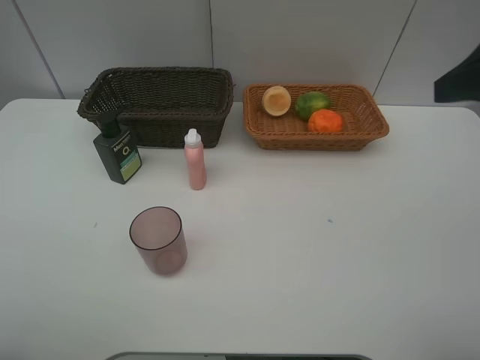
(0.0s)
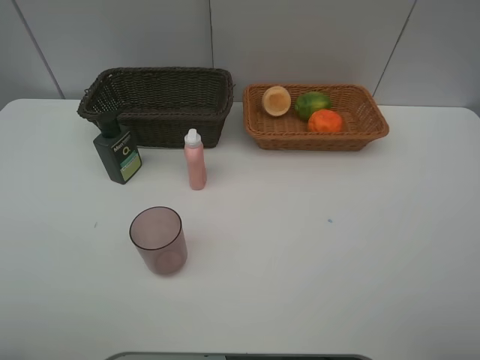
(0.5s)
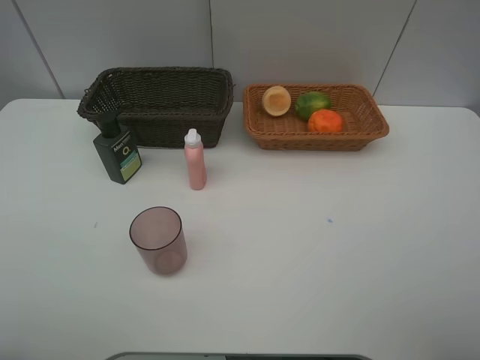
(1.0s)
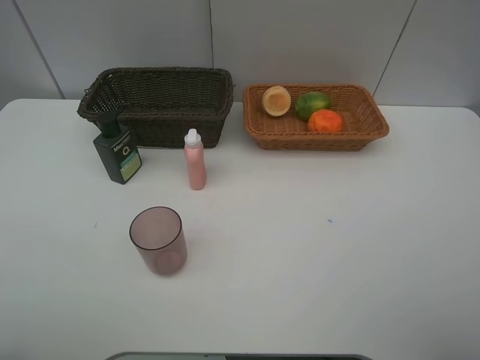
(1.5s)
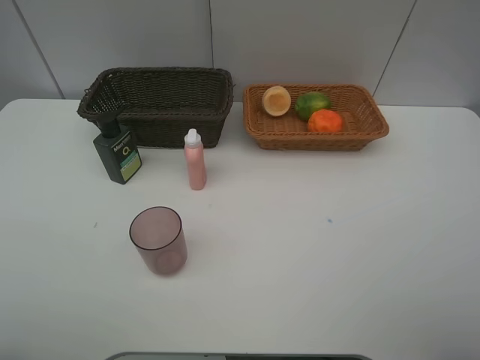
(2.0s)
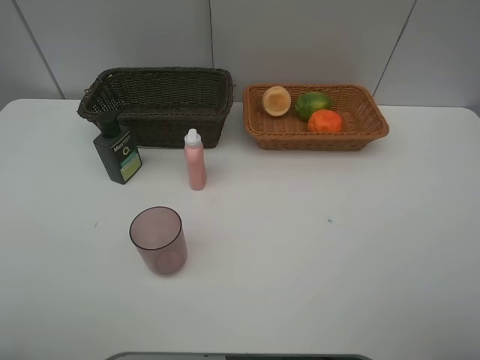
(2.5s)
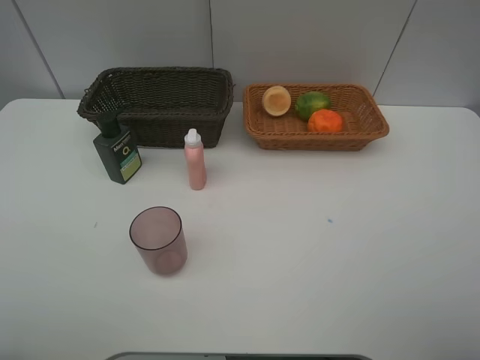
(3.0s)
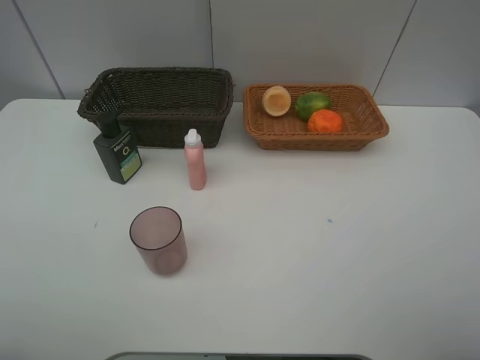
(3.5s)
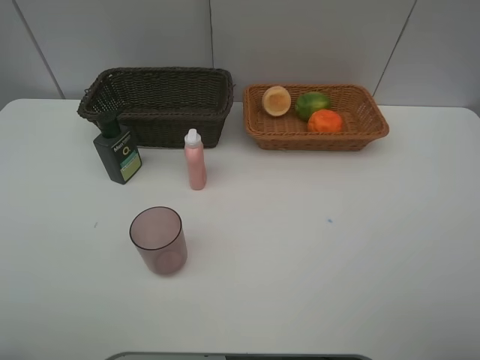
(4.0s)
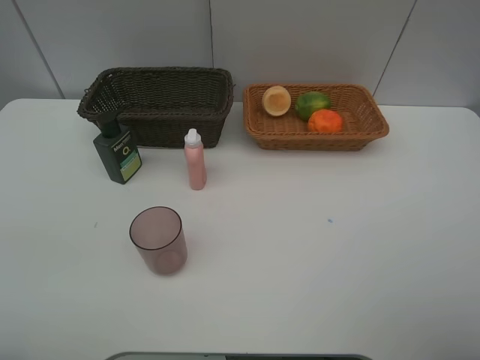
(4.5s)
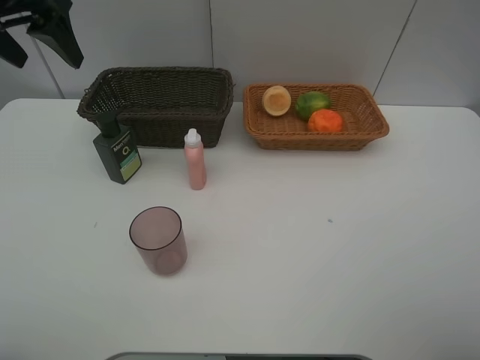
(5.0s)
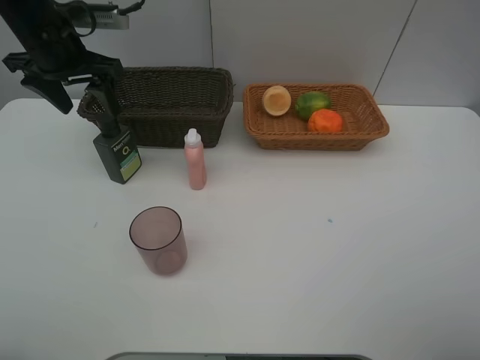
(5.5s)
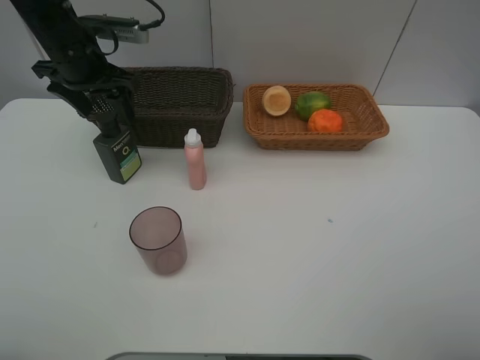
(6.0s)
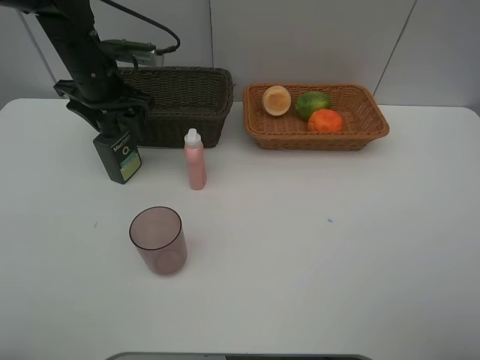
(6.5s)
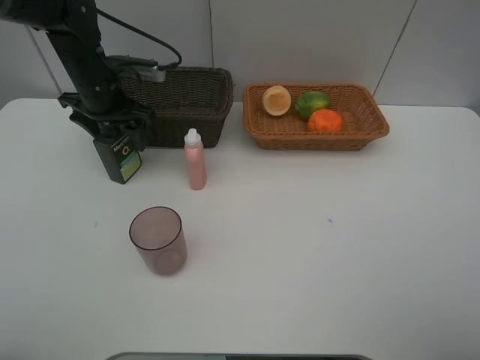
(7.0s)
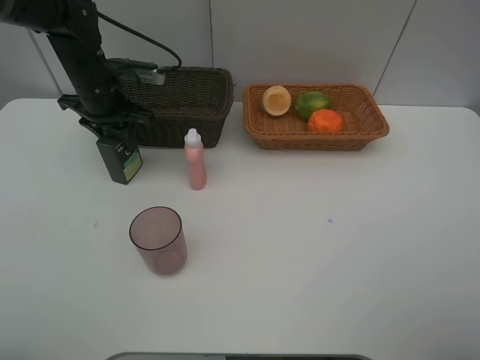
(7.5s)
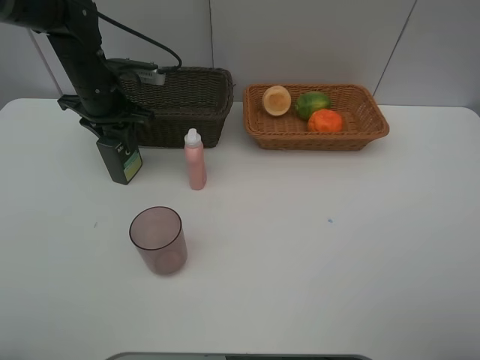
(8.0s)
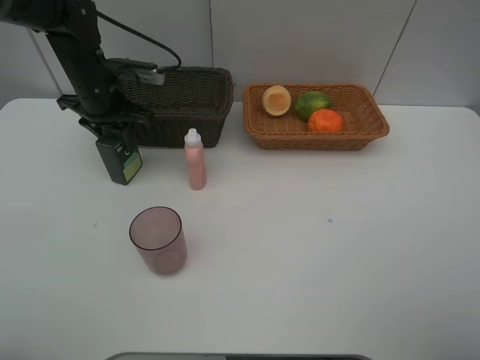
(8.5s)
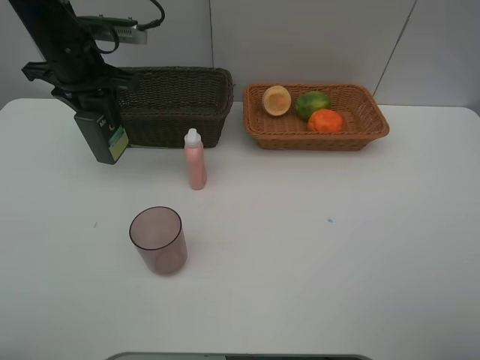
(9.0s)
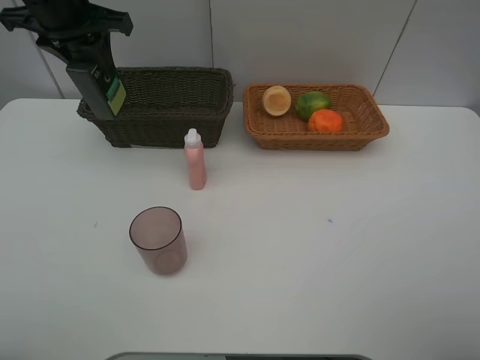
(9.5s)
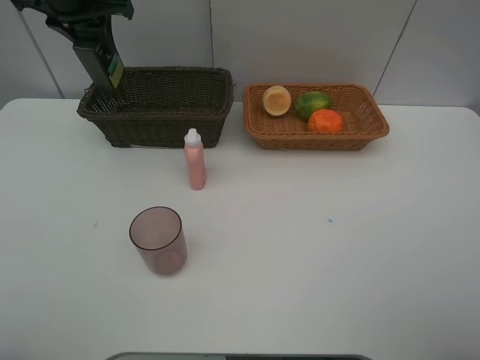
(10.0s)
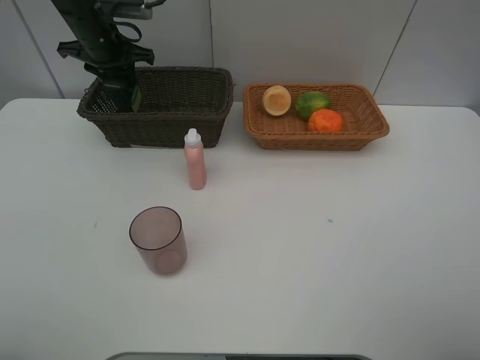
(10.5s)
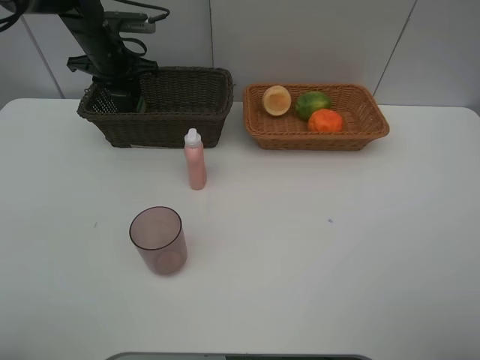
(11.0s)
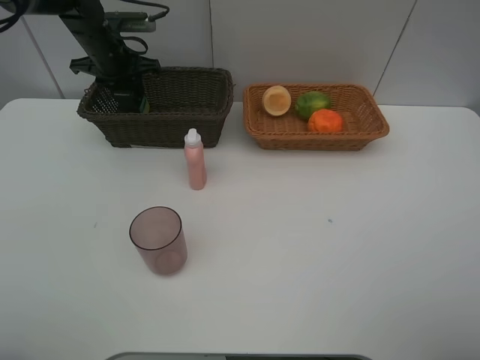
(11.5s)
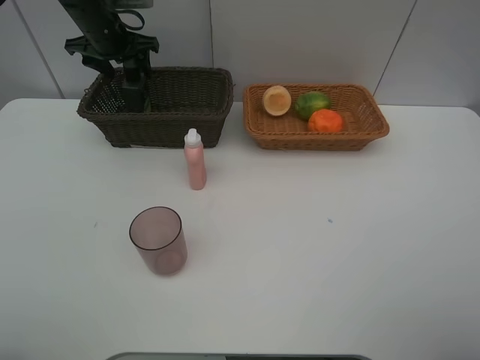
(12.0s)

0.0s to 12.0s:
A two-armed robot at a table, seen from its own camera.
Task of the whole recording: place multiple objects separately in different baskets.
0.0s to 2.0s: The right gripper goes some 15 cm backward and downward.
4.0s to 6.0s: The left gripper moves forward, about 40 cm.
6.0s to 8.0s: The left gripper goes some 5 cm downward, and closes.
8.0s to 10.0s: The left gripper heads upward, covering roughly 15 cm.
10.0s to 12.0s: The left gripper heads downward and forward, covering about 10 cm, and opens up.

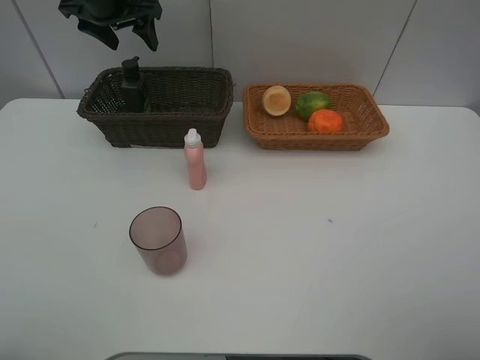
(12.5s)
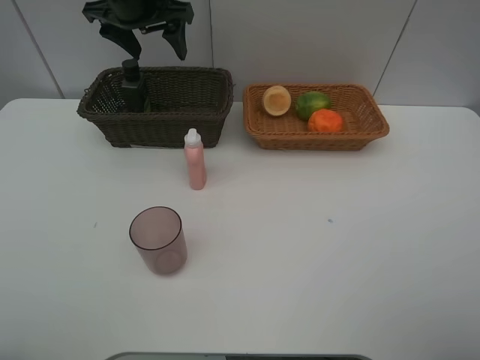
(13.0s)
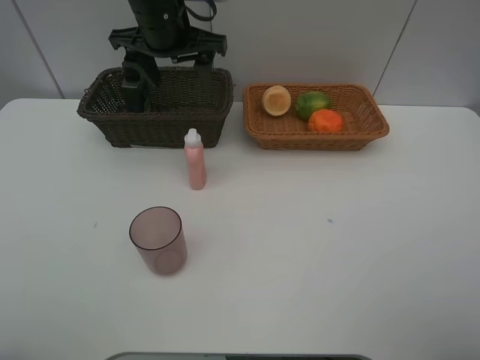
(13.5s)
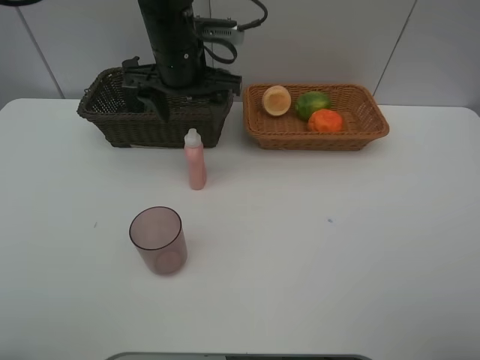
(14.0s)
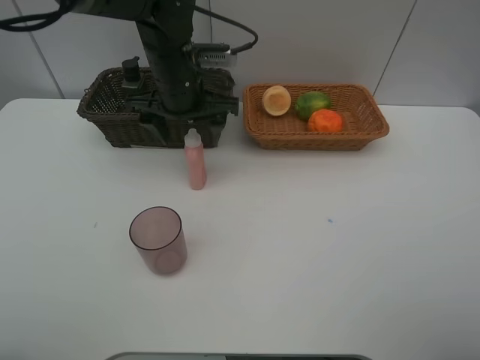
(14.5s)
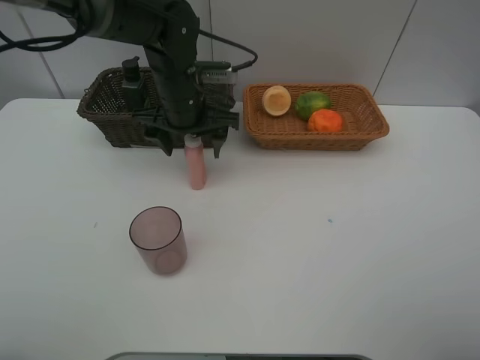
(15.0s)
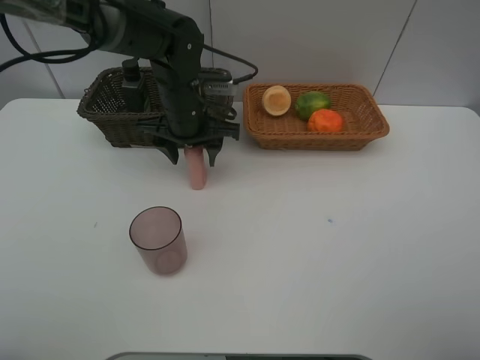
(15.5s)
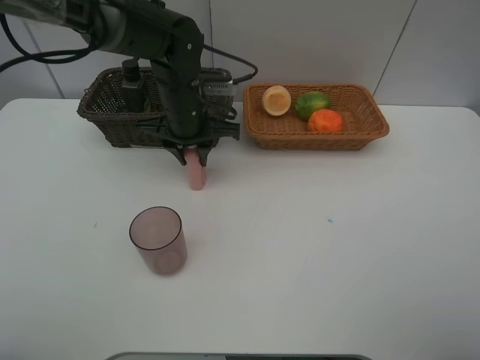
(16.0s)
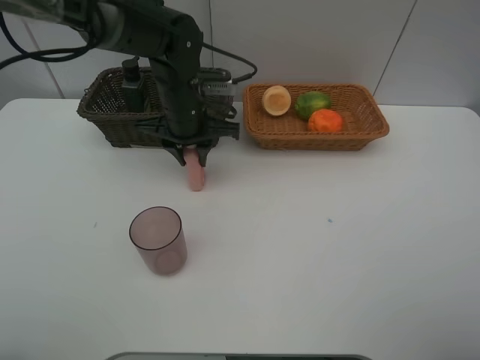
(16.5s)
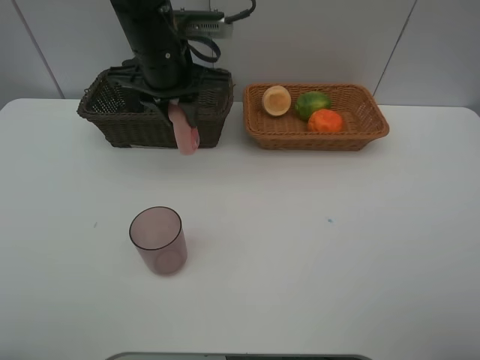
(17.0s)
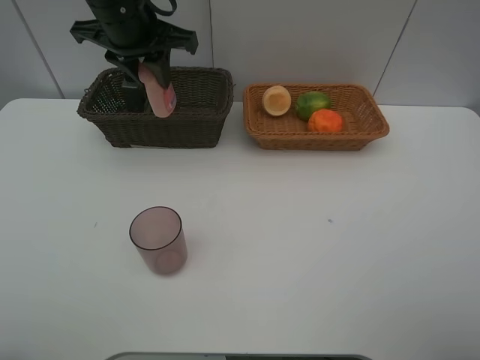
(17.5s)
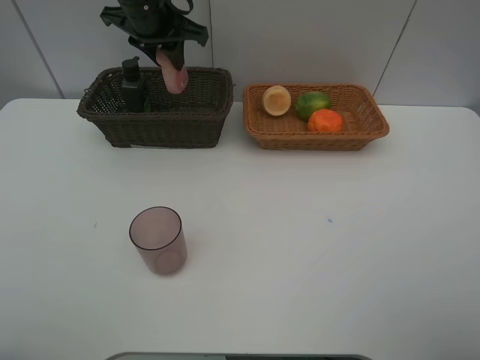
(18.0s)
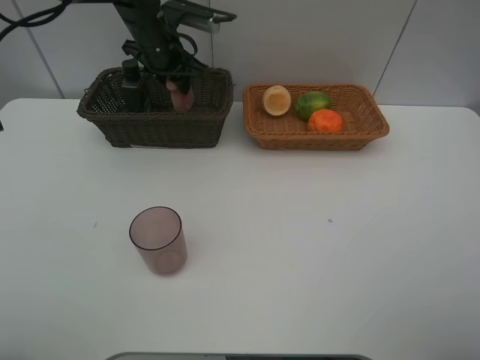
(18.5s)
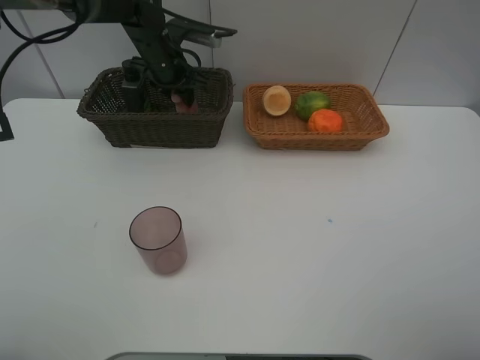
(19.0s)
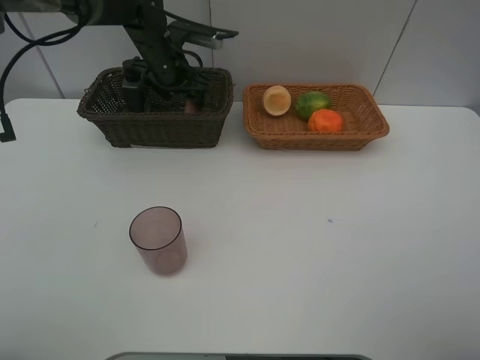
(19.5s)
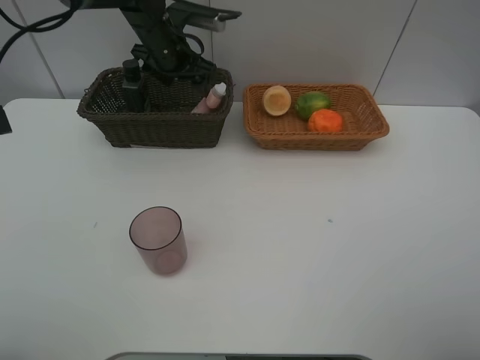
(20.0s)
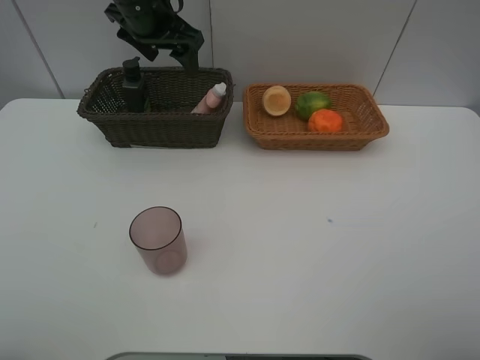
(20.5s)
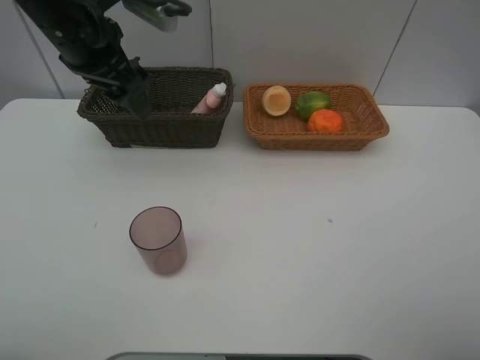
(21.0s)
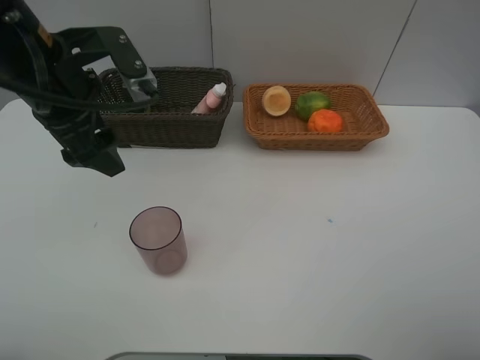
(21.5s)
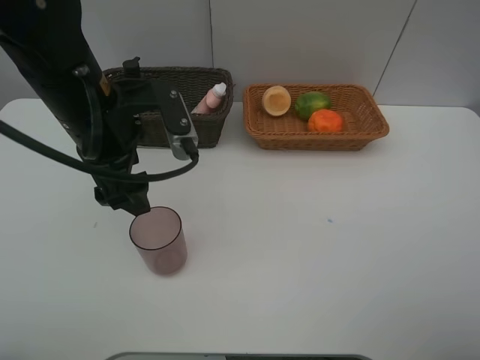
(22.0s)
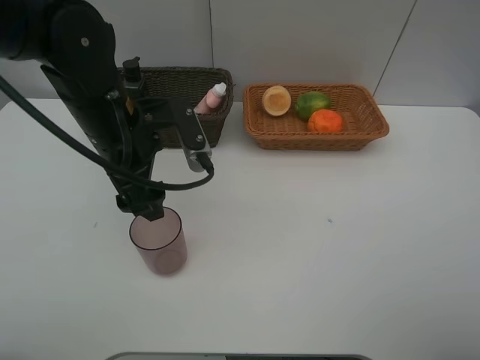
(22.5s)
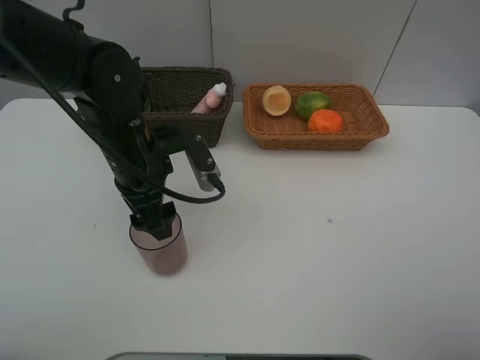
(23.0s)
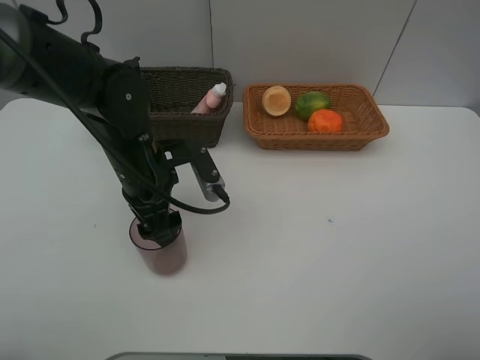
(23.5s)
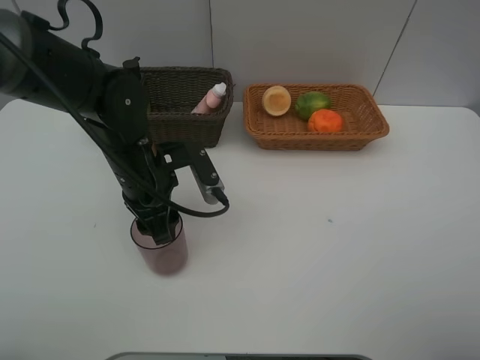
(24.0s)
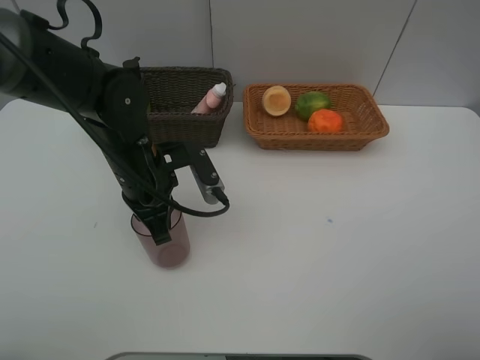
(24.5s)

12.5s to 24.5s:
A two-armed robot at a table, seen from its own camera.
Task of the whole recording: place multiple objects separately in different baskets.
12.5s to 14.5s: The left gripper heads to the right, backward and downward, covering about 20 cm.
14.5s to 16.5s: The left gripper closes its fingers.
16.5s to 18.5s: The left gripper moves forward and to the left, some 10 cm, and reaches approximately 15 cm upward, then returns.
18.5s to 20.5s: The left gripper is displaced upward and backward by about 10 cm, and opens up.
20.5s to 22.5s: The left gripper heads backward and downward, covering approximately 20 cm.
22.5s to 24.5s: The left gripper is displaced downward by approximately 5 cm, and closes up.

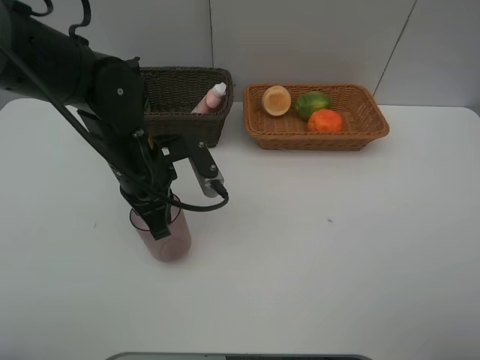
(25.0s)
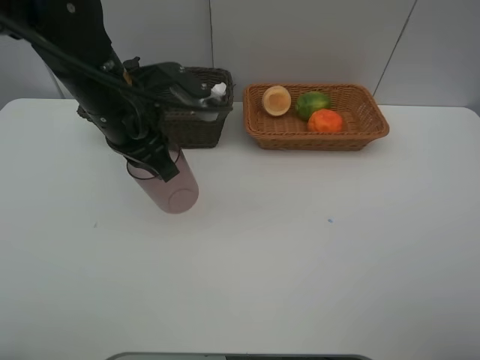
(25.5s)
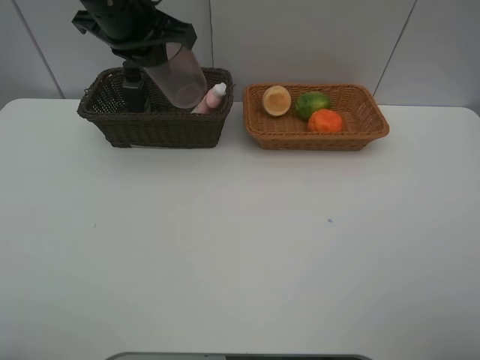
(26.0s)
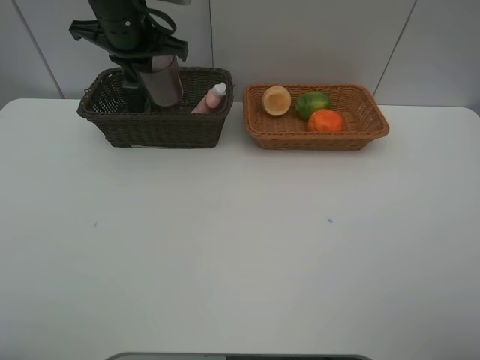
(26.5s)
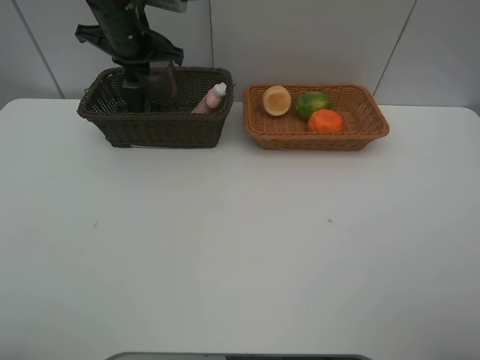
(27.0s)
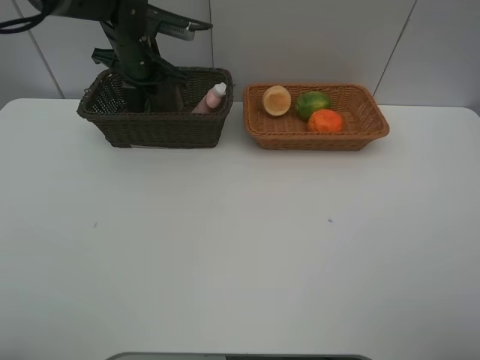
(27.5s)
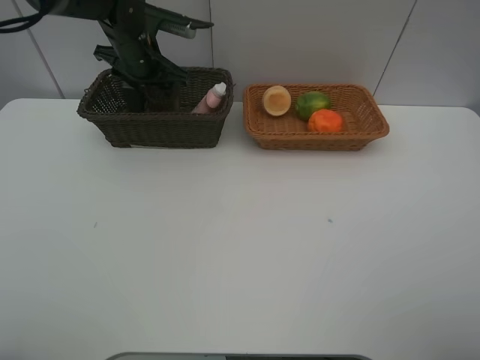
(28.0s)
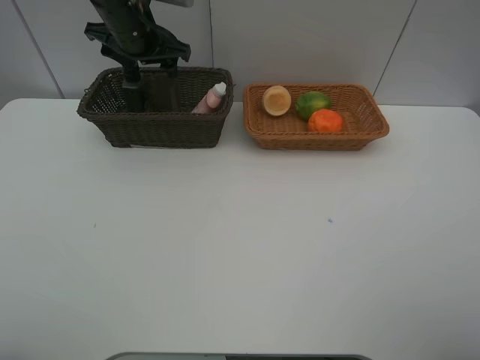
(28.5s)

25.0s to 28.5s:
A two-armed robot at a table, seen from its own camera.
Task of the whole recording: place multiple objects separately in different baskets.
25.0s to 27.0s: The left gripper is displaced forward and upward by approximately 20 cm.
27.0s to 28.5s: The left gripper opens.
